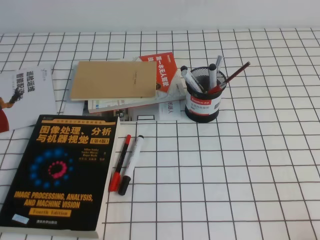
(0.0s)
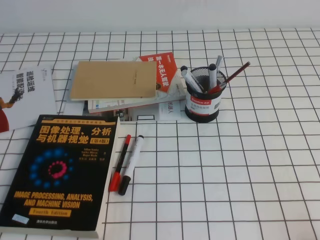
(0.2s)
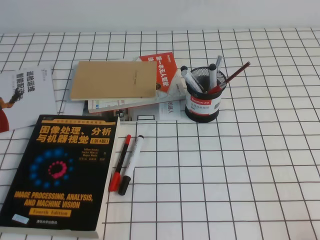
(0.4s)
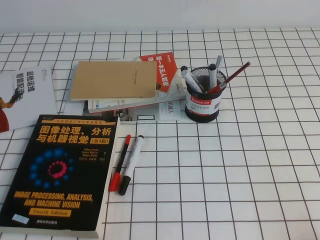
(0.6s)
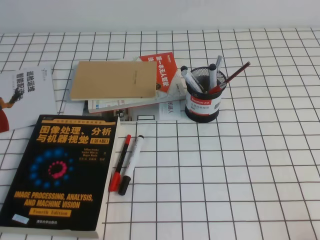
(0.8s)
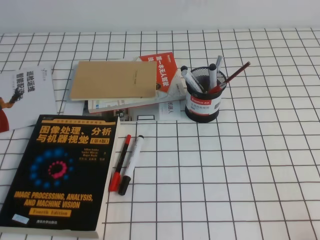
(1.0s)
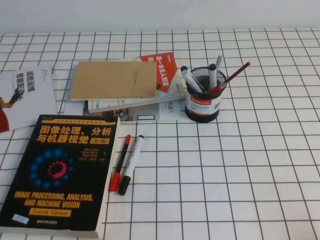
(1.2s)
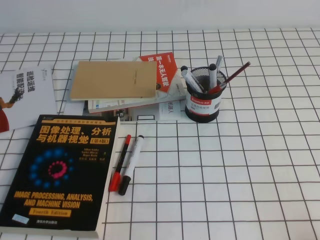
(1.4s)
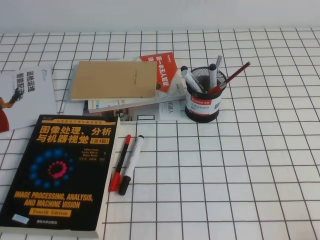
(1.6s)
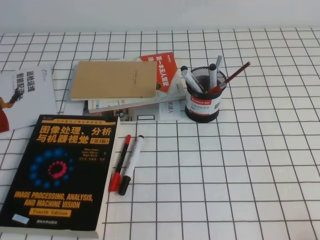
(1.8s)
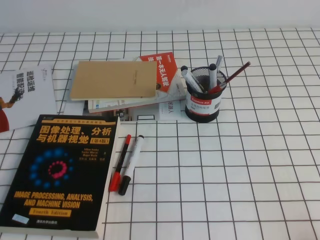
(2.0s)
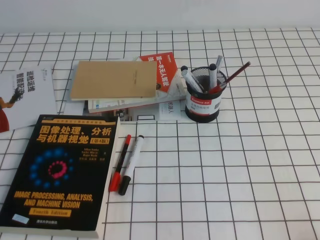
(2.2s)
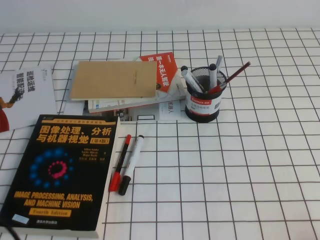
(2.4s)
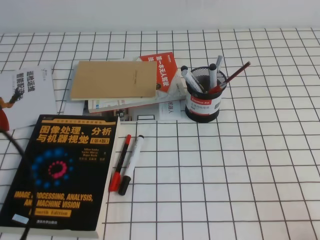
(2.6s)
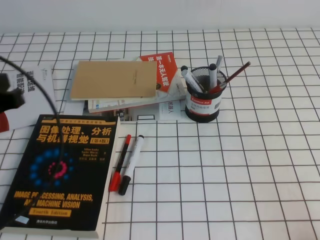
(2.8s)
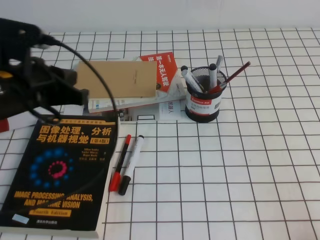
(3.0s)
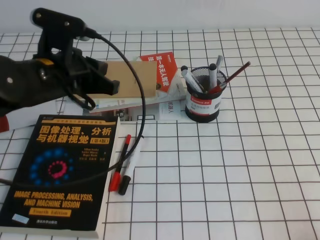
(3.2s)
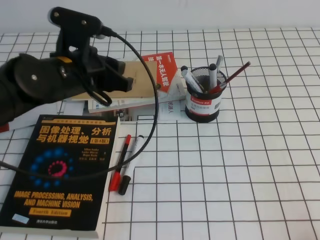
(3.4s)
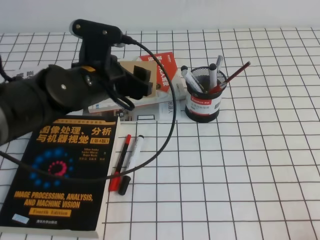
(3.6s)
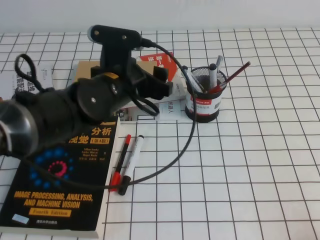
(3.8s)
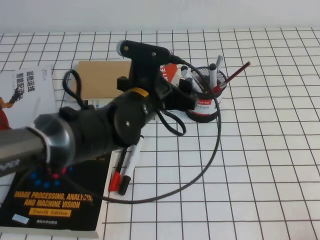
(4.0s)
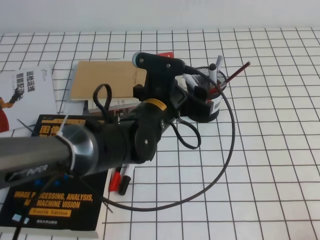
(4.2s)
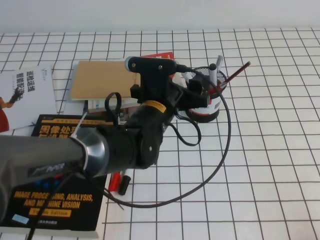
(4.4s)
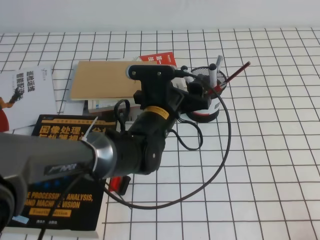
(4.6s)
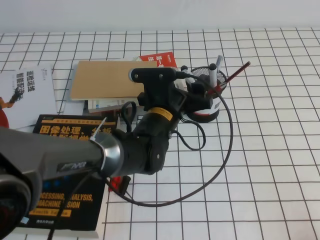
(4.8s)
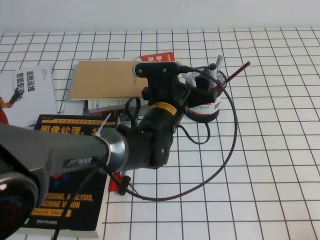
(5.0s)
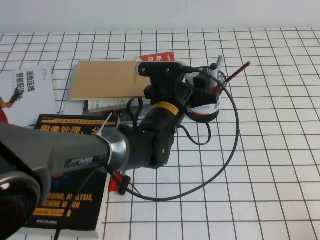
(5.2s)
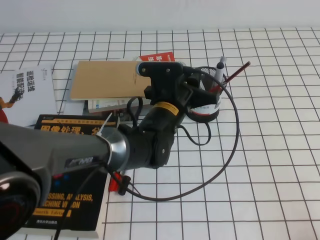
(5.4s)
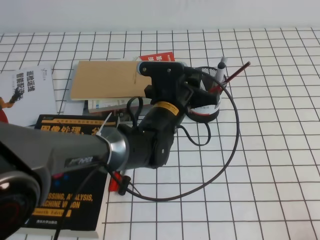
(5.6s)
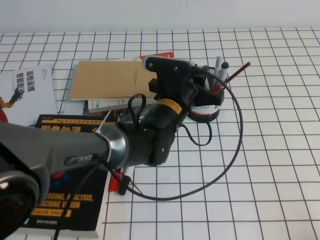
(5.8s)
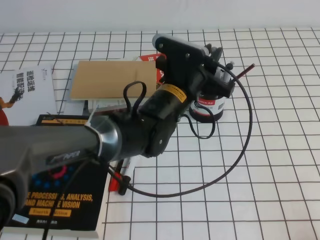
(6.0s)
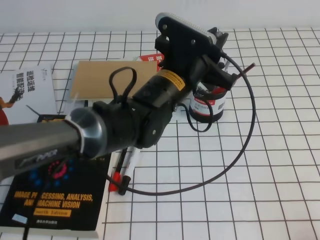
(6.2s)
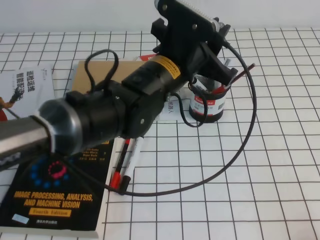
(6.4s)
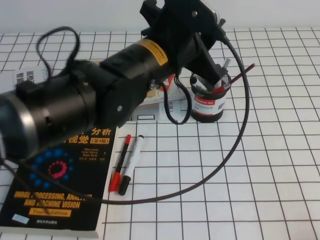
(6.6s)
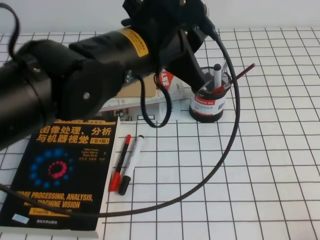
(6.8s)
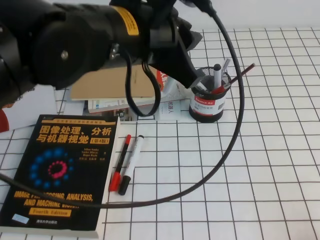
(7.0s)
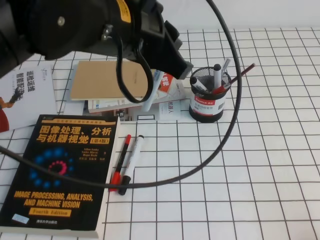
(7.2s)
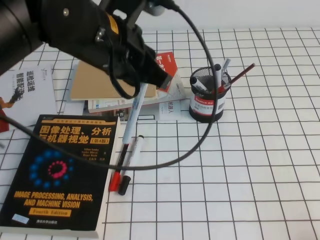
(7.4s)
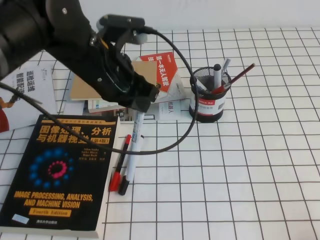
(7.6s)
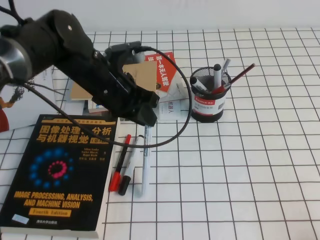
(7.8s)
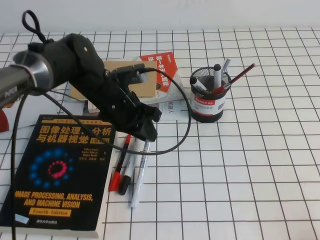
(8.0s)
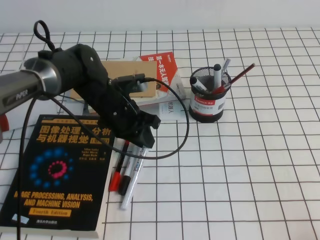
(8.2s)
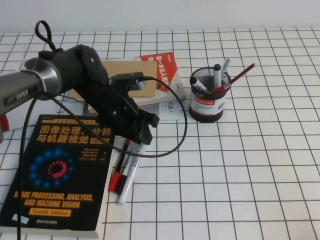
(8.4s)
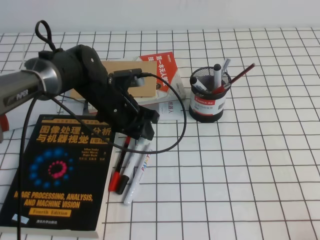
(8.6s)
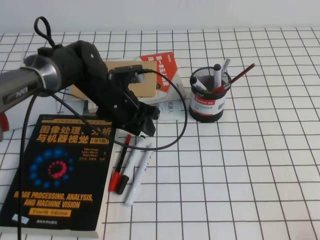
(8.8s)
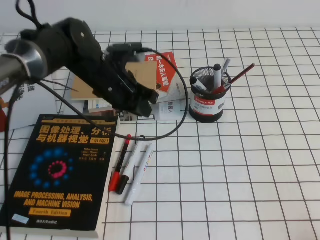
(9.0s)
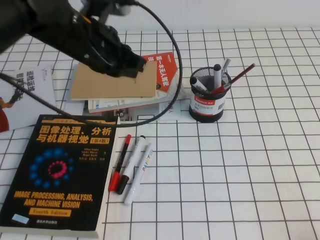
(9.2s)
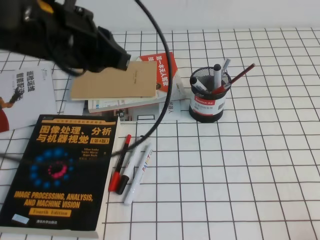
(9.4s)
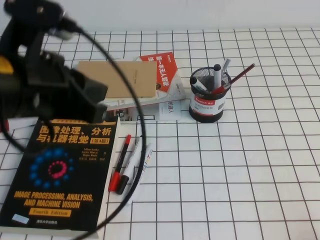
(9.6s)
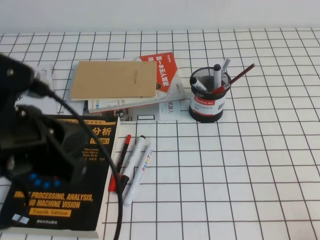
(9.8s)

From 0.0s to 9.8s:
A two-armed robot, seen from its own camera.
From 1.4s to 2.8s: The left gripper moves upward and forward, about 20 cm.
From 2.8s to 4.2s: The left gripper moves to the right, forward and downward, some 30 cm, and opens its fingers.
From 4.2s to 5.6s: The left gripper changes place by roughly 5 cm, and closes up.
From 5.6s to 7.0s: The left gripper moves upward and backward, roughly 20 cm.
From 7.0s to 8.4s: The left gripper travels downward and forward by some 25 cm.
From 8.4s to 9.8s: The left gripper is displaced backward, upward and to the left by about 30 cm.

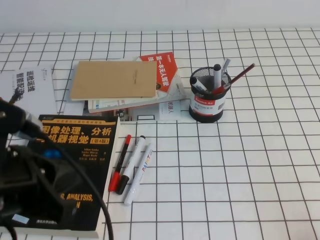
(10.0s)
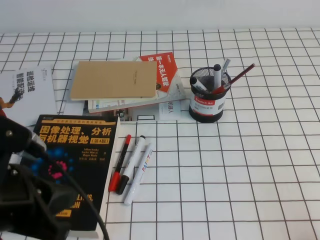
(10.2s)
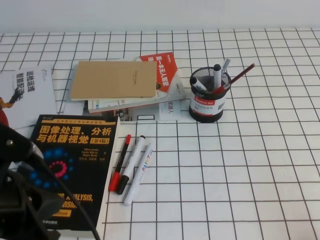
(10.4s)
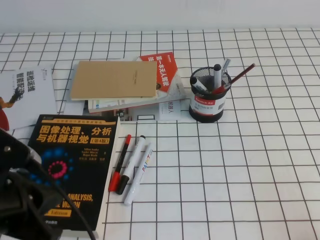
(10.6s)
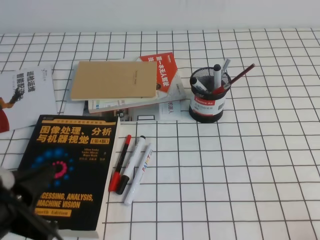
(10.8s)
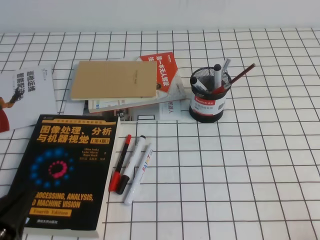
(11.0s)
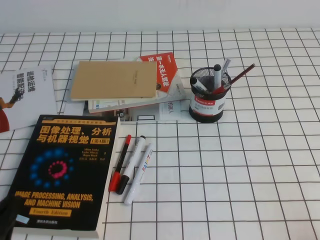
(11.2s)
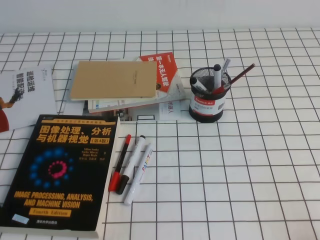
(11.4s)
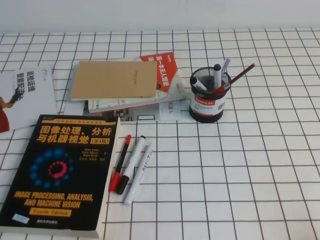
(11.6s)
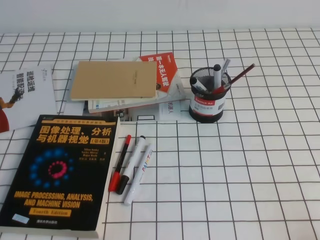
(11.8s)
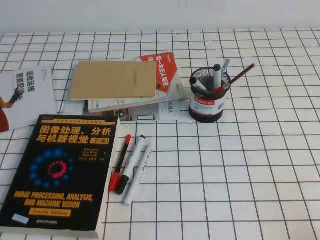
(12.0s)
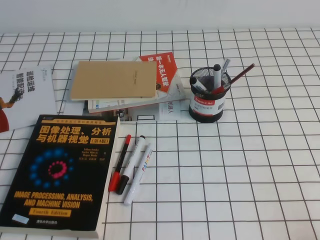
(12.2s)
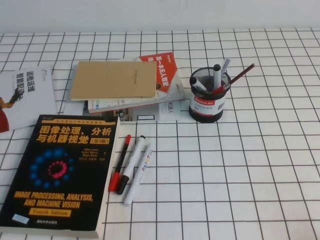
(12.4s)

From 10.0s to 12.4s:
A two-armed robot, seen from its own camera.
Step, from 10.0s to 12.4s: Pick up the pen from the pen holder.
From 10.0s to 11.2s: The left gripper is displaced downward, backward and to the left by about 15 cm.
